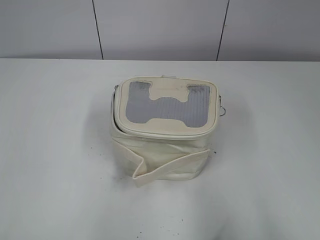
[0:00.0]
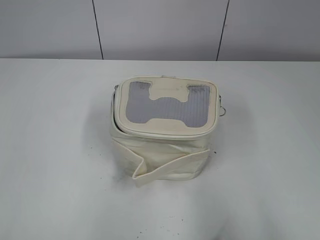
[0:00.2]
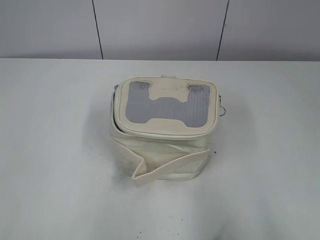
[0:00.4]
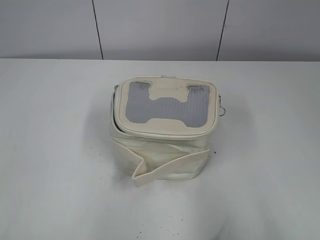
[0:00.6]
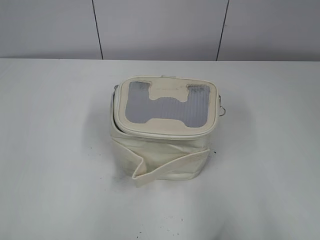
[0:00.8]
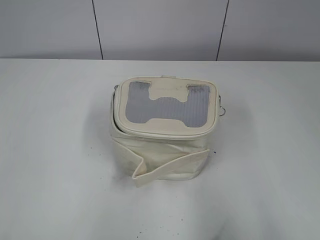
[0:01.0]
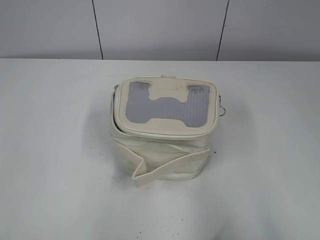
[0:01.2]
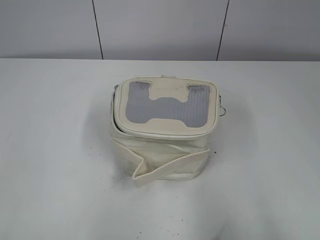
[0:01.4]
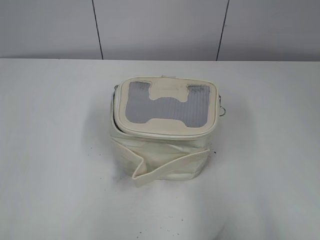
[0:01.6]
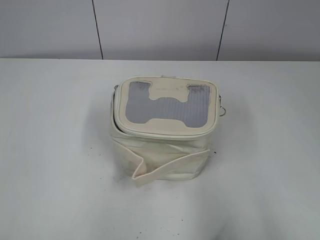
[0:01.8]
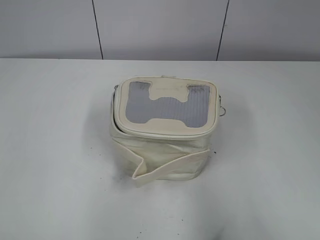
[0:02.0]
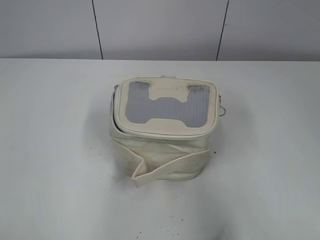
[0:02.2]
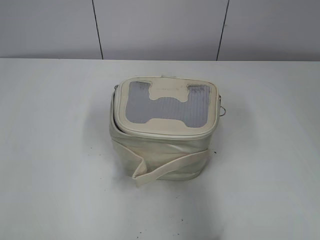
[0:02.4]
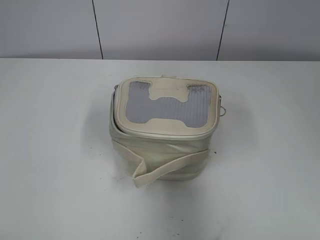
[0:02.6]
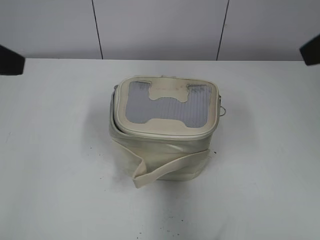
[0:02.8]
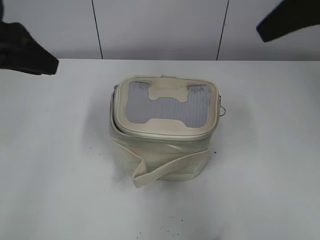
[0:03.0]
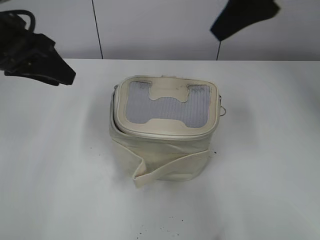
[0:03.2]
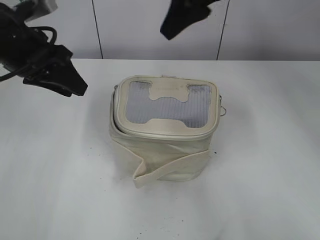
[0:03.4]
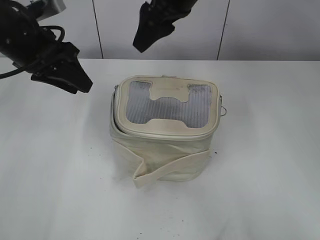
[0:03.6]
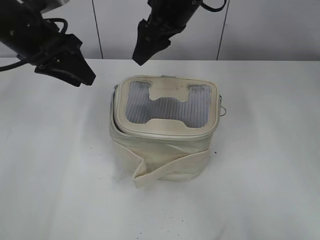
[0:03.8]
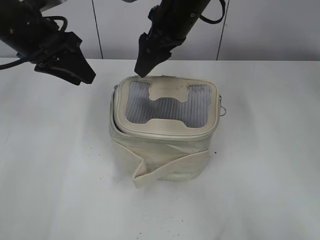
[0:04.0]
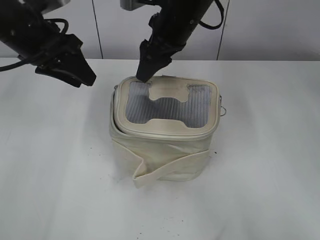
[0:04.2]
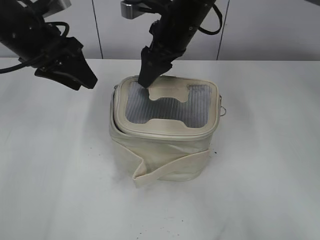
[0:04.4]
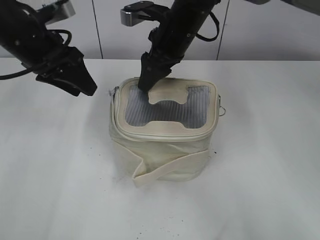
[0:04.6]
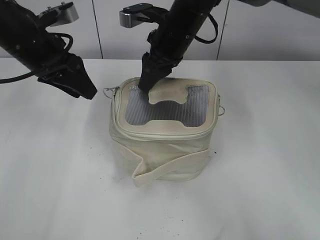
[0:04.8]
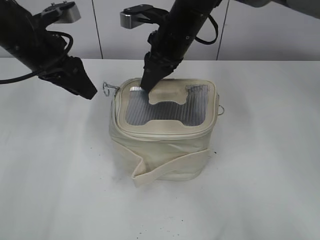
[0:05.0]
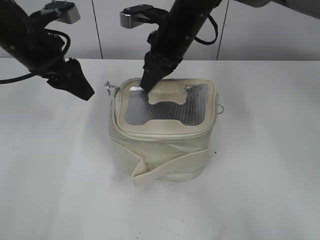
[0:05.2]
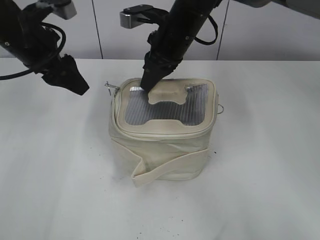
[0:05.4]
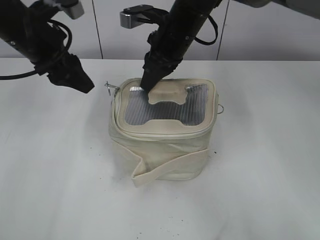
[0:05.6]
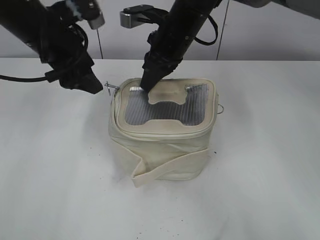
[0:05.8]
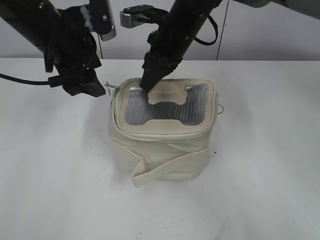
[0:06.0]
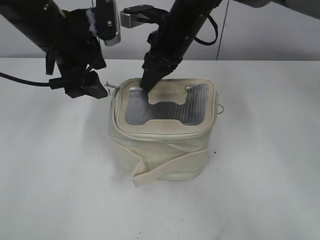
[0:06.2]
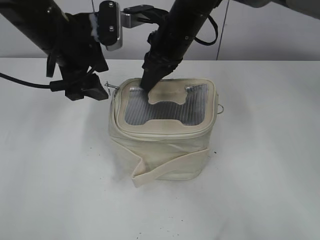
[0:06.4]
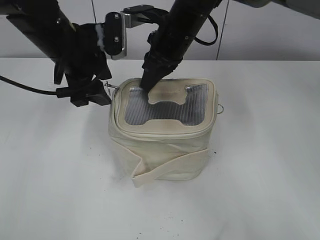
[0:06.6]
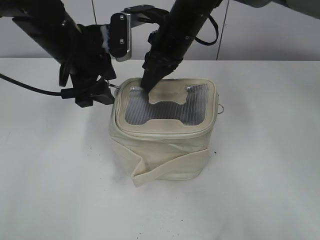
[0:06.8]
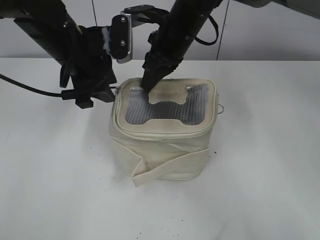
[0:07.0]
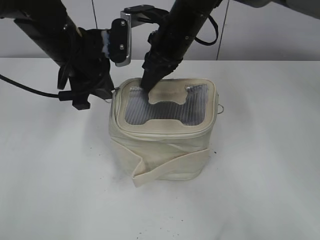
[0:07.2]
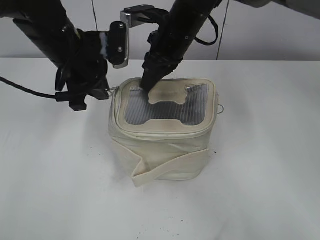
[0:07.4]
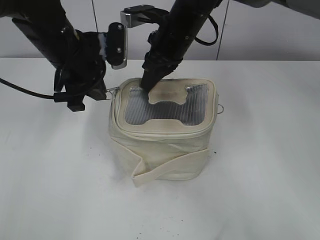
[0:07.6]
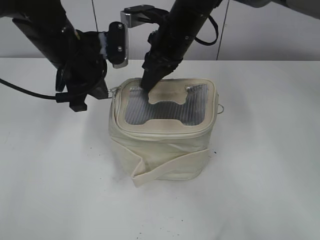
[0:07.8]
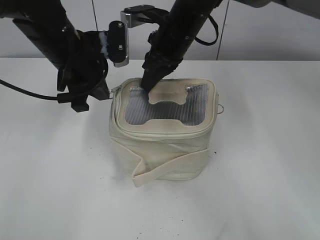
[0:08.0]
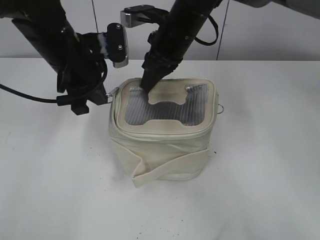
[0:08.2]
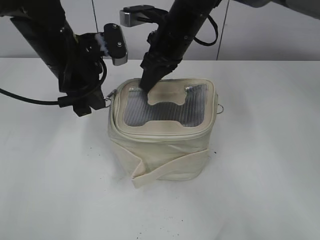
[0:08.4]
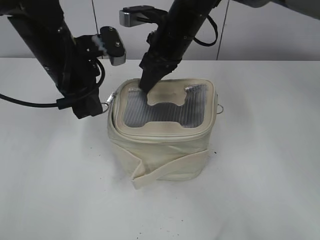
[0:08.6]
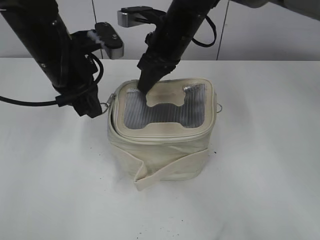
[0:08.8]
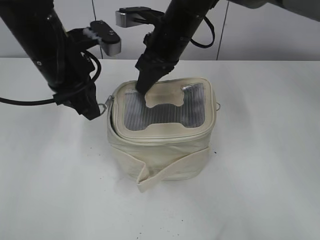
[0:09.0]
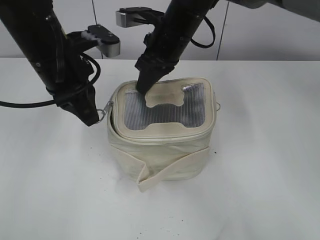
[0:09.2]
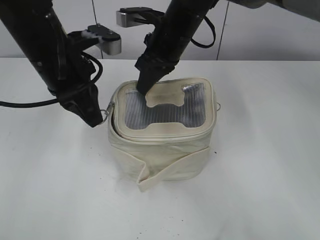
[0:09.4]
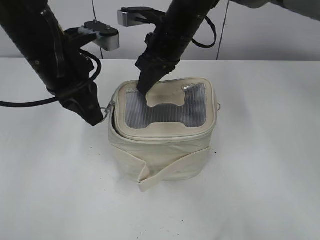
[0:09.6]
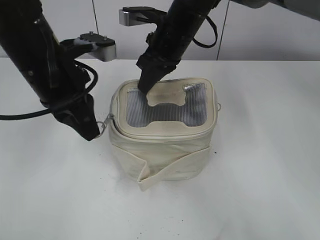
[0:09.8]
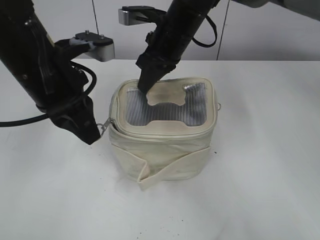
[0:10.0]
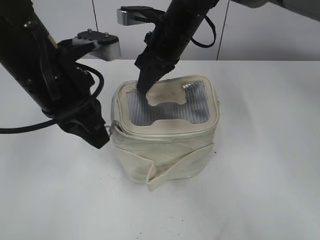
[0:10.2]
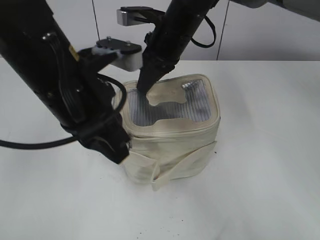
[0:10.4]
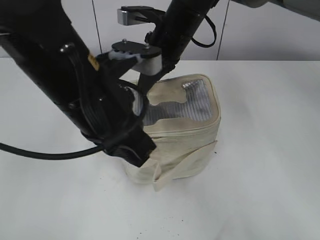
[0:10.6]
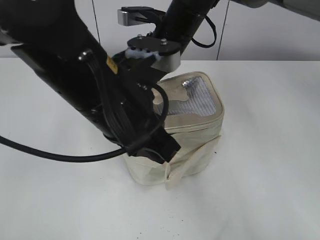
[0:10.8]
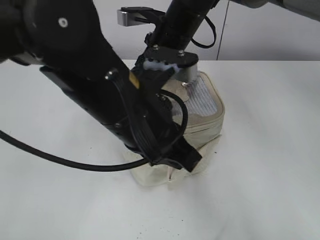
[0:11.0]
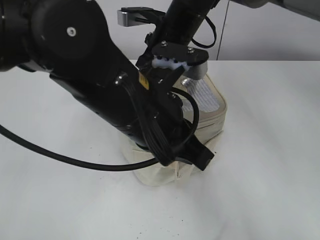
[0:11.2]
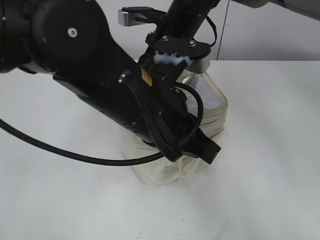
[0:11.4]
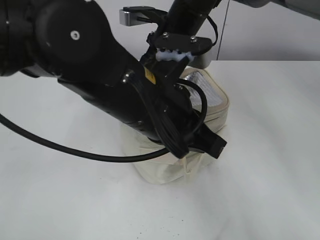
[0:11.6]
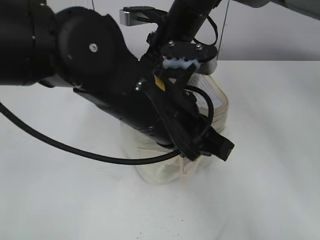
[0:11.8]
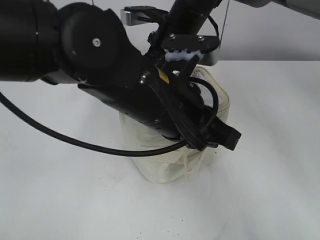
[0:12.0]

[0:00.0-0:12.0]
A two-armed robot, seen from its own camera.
0:01.6 to 0:03.0: Both grippers travel together forward, some 25 cm.
0:03.0 to 0:04.4: The left gripper moves forward and downward, approximately 10 cm, while the right gripper moves to the left, forward and downward, roughly 25 cm.
0:04.4 to 0:06.0: The right gripper closes; the left gripper opens its fingers.
0:06.0 to 0:07.6: The left gripper closes its fingers.
0:09.0 to 0:10.4: The left gripper travels backward by roughly 10 cm.
0:10.4 to 0:12.0: The left gripper heads to the right, covering about 10 cm.

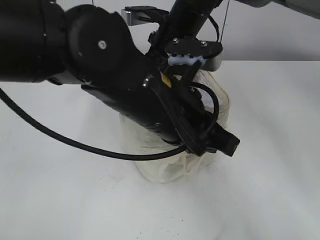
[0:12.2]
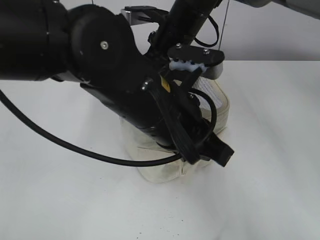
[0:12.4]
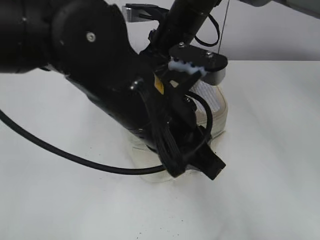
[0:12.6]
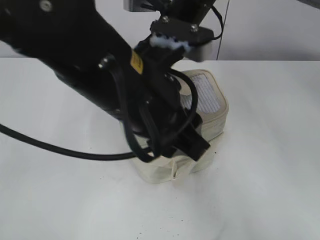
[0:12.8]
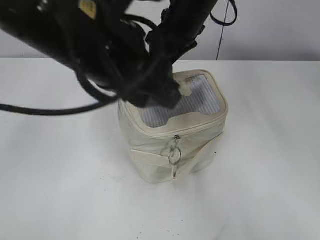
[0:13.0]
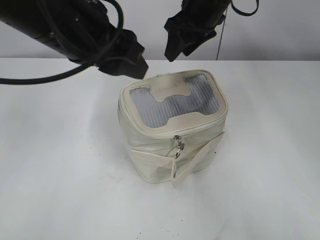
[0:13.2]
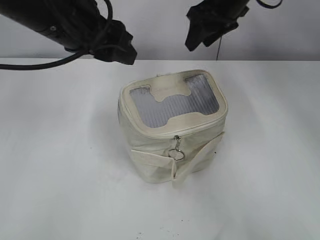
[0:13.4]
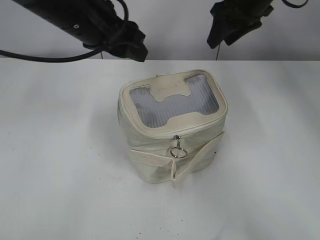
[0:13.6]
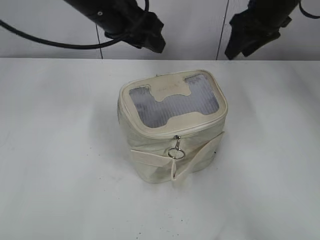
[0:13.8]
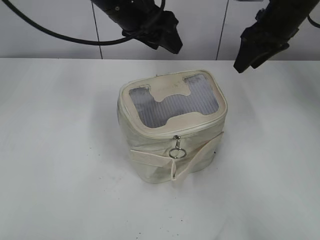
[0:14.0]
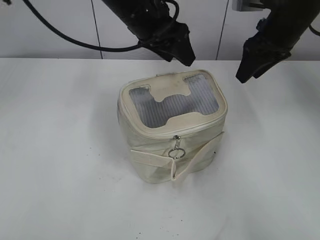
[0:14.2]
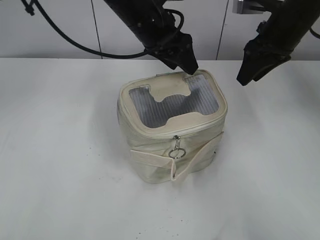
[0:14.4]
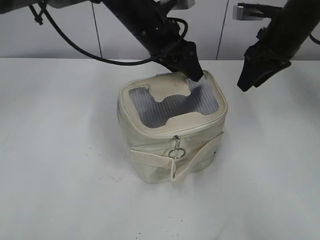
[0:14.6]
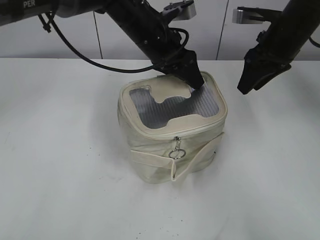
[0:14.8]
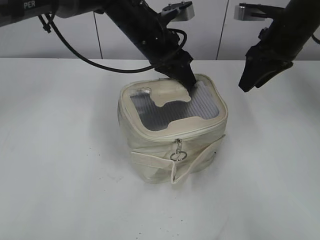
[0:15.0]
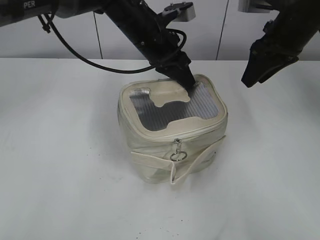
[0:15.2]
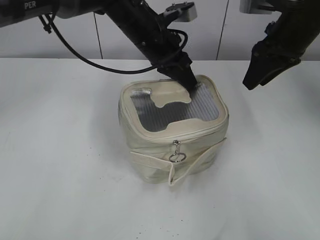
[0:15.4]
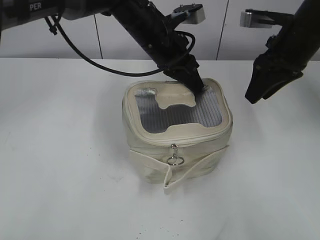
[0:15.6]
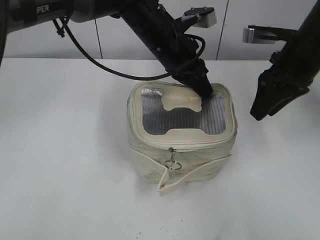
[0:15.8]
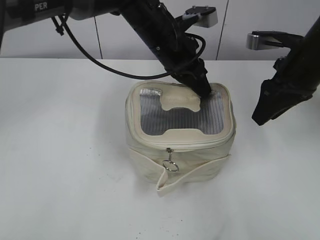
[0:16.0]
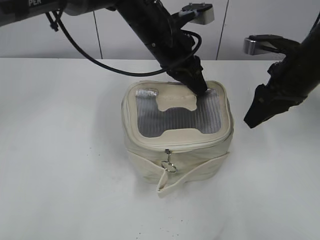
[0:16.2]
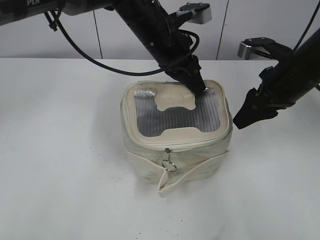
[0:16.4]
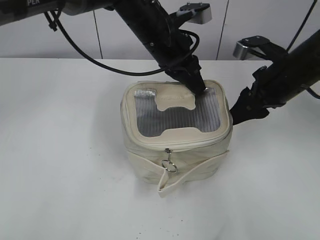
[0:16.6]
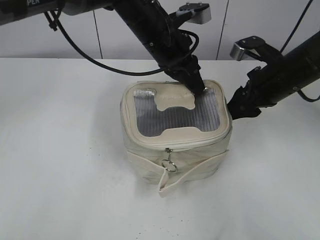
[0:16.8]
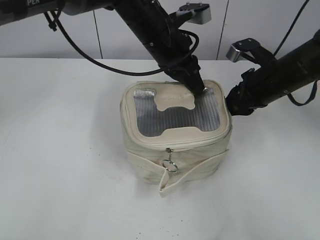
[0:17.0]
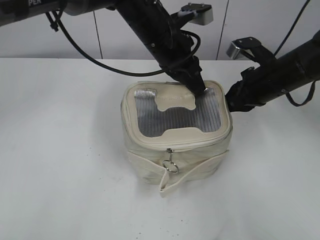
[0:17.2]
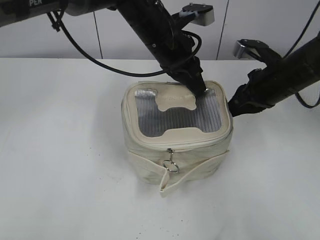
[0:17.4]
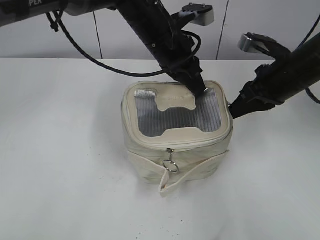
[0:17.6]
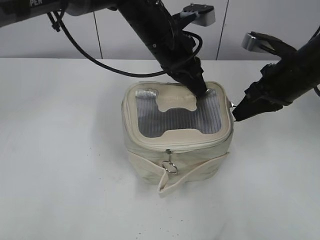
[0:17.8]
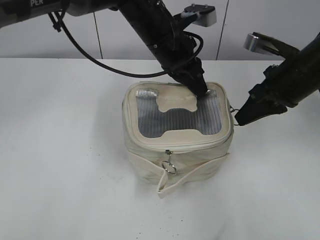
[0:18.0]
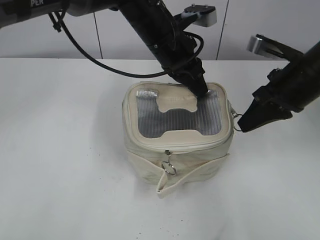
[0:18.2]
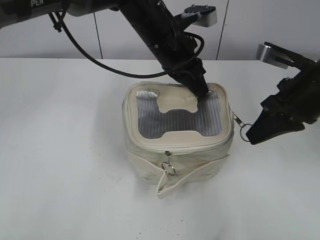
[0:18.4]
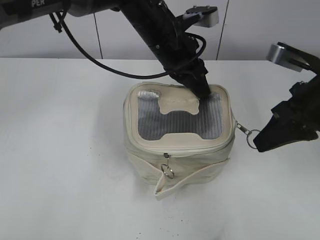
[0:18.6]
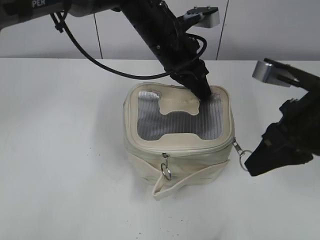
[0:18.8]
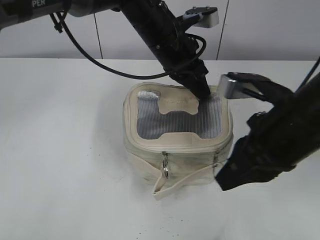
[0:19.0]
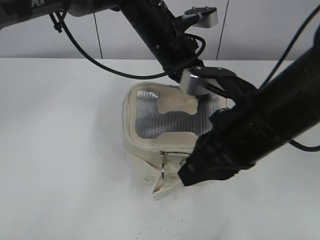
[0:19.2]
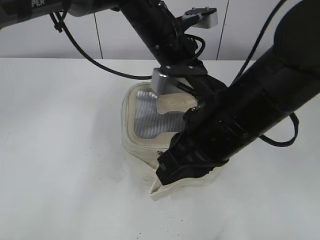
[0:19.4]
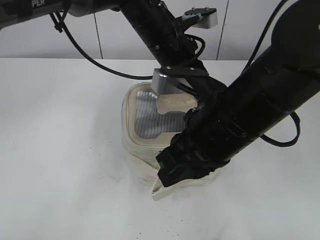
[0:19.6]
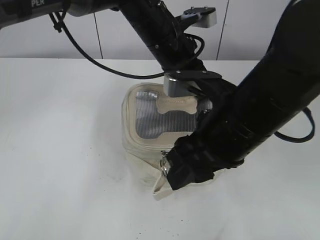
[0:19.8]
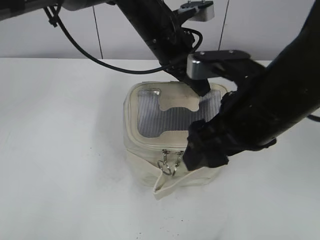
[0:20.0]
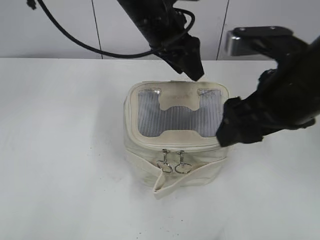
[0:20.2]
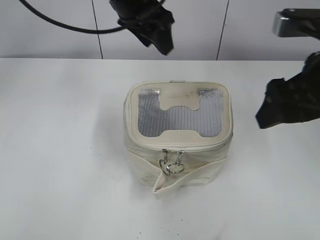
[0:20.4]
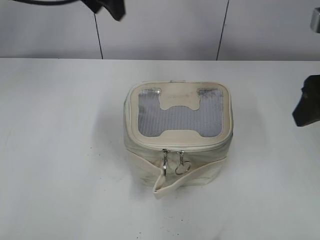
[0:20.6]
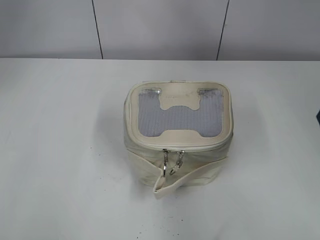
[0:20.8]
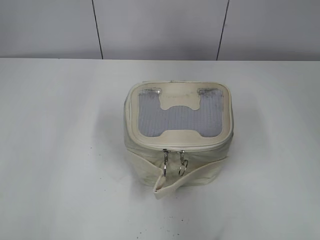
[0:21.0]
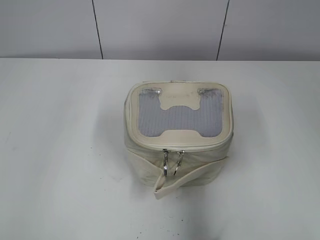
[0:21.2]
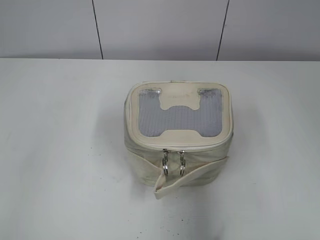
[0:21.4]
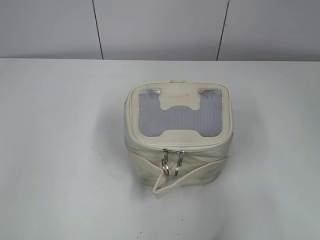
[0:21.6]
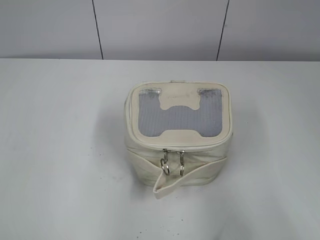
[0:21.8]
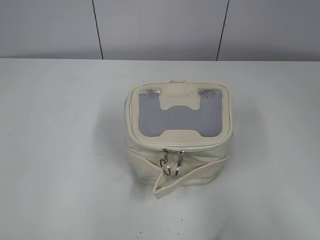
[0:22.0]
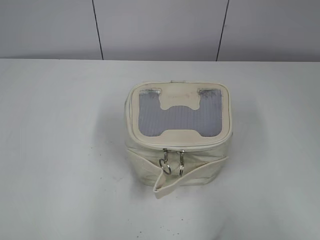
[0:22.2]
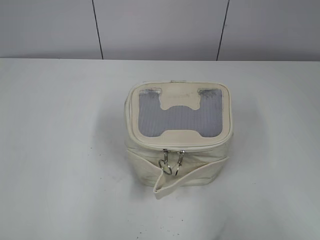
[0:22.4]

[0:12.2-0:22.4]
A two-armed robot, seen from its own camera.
Step, 0:13.2 to 0:19.8: Zip up the bag with your right hand.
0:12.2 to 0:13.6: The left gripper heads forward, to the left and upward, covering roughly 15 cm, and opens its fingers. Meanwhile the right gripper is displaced to the right and upward by approximately 15 cm, and opens.
0:13.6 to 0:15.2: The right gripper heads backward and to the right, covering about 10 cm; the left gripper moves to the right, forward and downward, roughly 15 cm, and closes up.
0:15.2 to 0:16.6: The right gripper moves downward and backward, about 10 cm.
0:16.6 to 0:18.0: The right gripper closes its fingers.
0:18.0 to 0:19.4: The right gripper travels to the left and backward by some 20 cm.
0:19.4 to 0:21.0: The left gripper is displaced to the left and upward by some 30 cm, and opens up, while the right gripper goes about 20 cm to the right and upward, and opens.
0:21.0 to 0:22.4: The right gripper moves backward, some 20 cm; the left gripper heads backward, covering approximately 35 cm.
